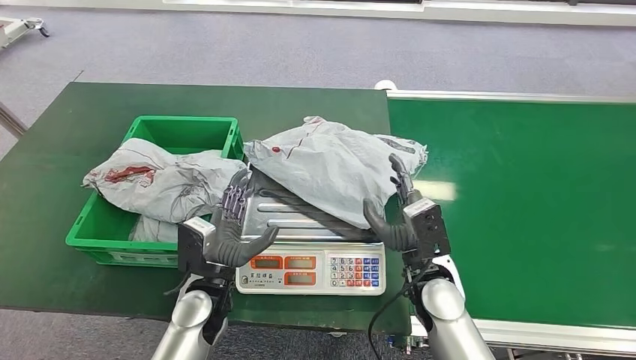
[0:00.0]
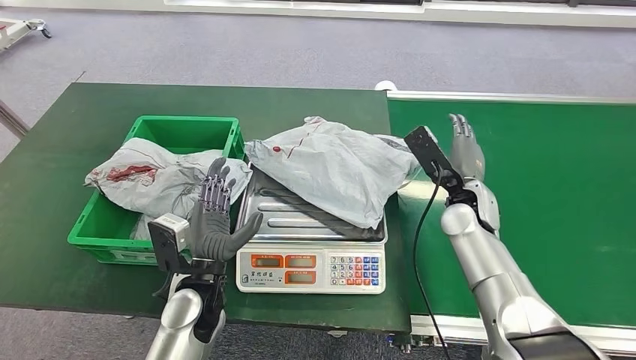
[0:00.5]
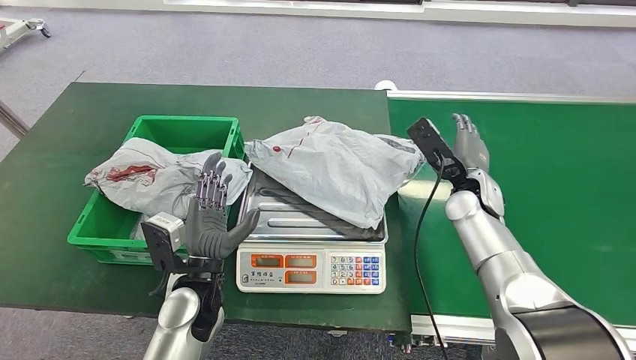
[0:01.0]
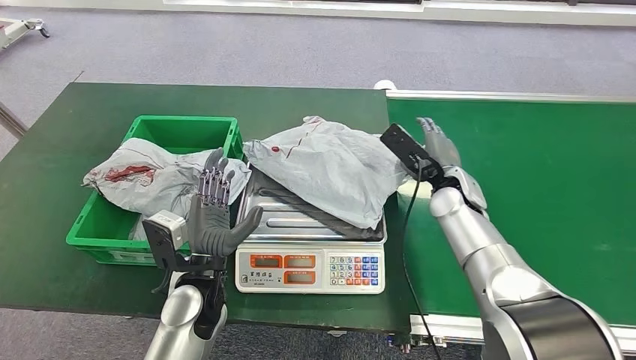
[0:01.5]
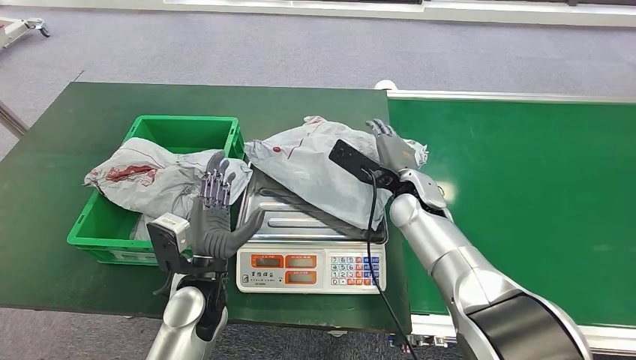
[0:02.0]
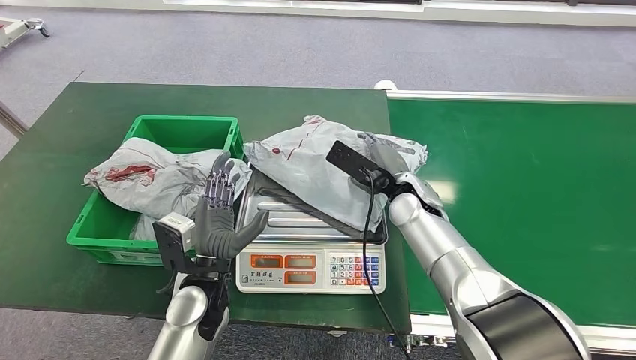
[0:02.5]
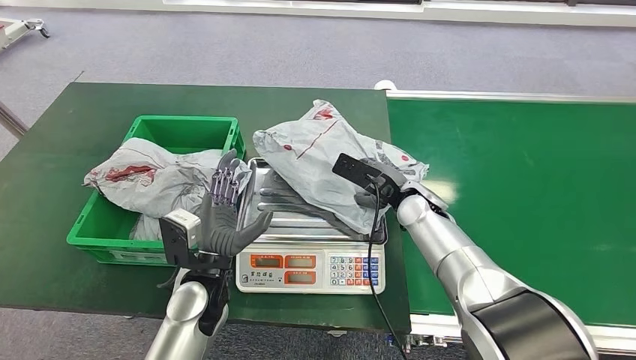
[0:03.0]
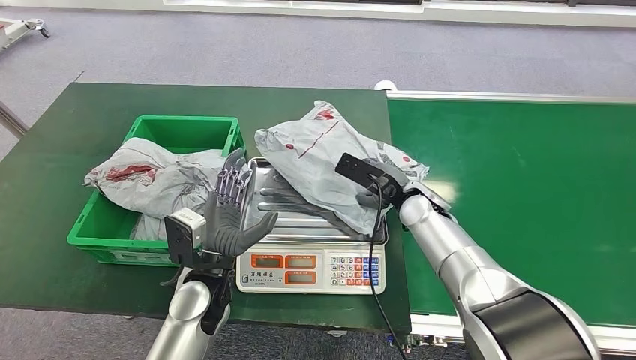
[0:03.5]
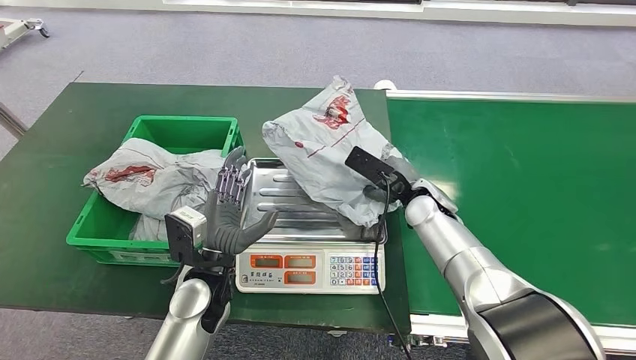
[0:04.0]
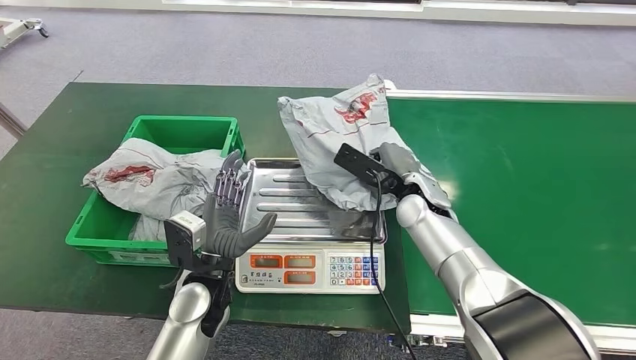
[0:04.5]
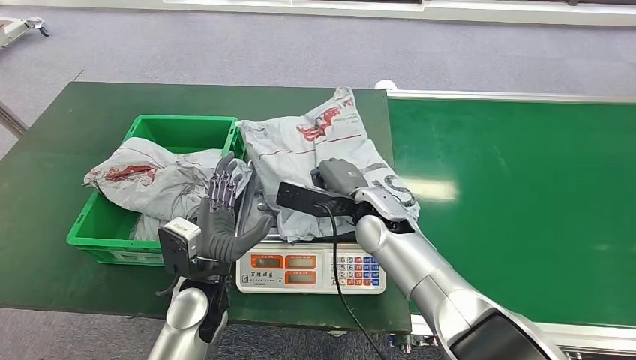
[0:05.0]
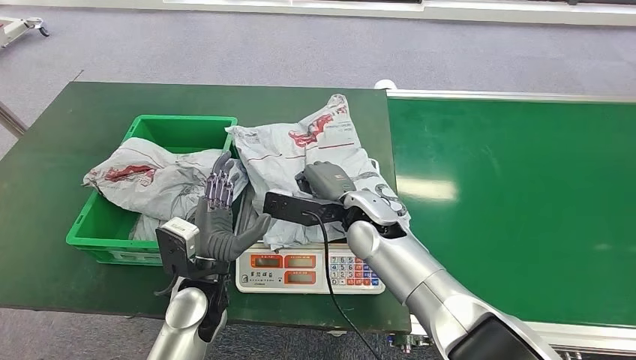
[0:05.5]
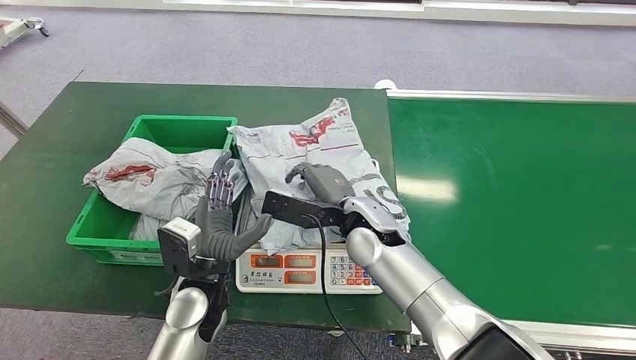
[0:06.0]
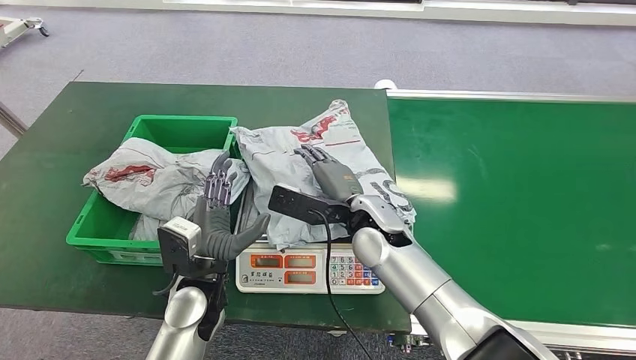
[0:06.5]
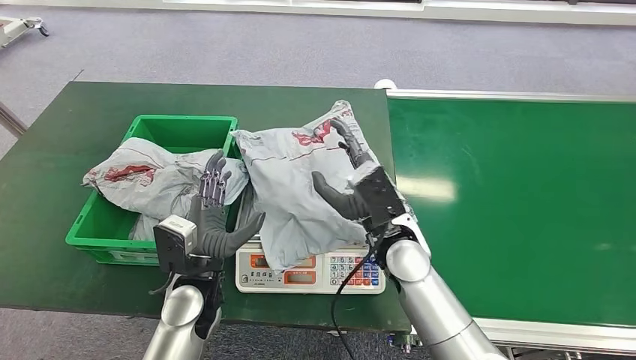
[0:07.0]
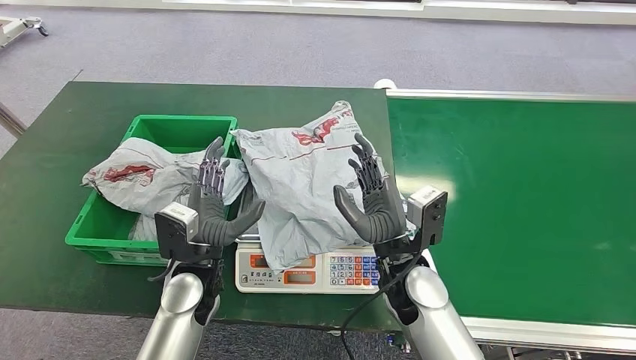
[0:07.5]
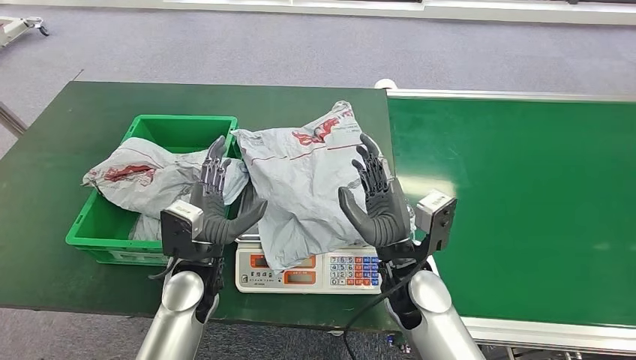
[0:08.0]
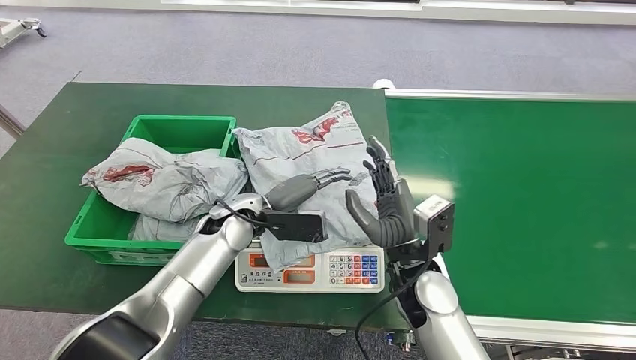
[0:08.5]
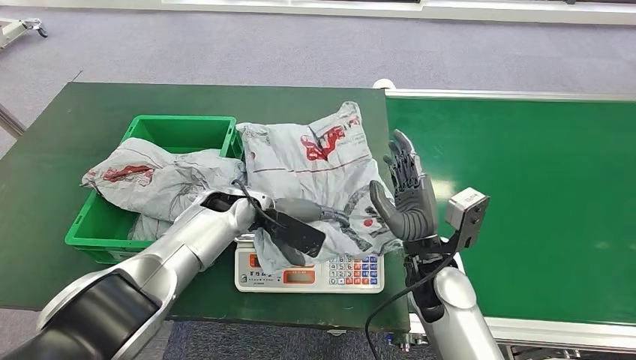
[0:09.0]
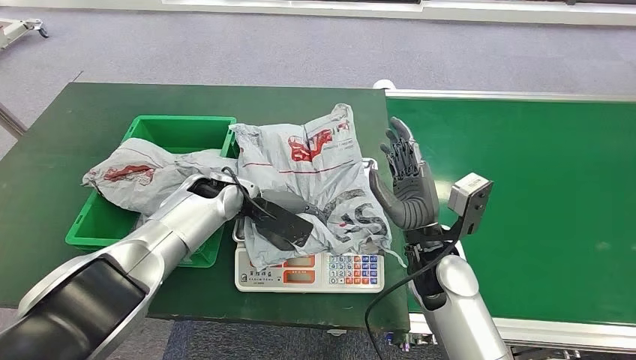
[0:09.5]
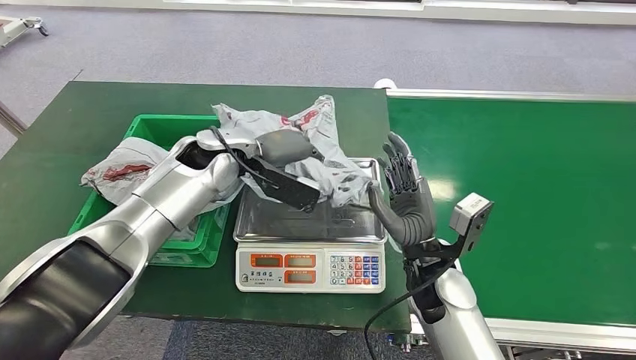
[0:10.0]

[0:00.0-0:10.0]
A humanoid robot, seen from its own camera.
Task of the whole recording: Weigh the package on the weighing device and place it in the left basket.
Step, 0:00.0 to 0:07.5: Place the package onto the inbound machine.
0:00.0 to 0:02.0: The right hand shifts about 15 cm forward.
0:06.0 to 0:08.0: The right hand heads backward and to the right, covering about 10 cm.

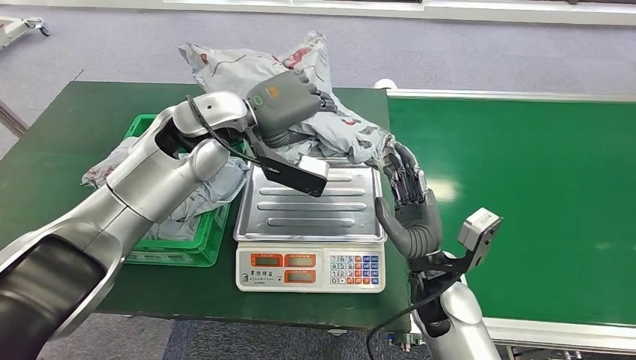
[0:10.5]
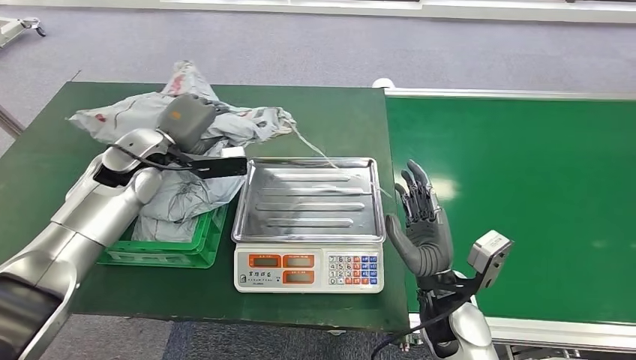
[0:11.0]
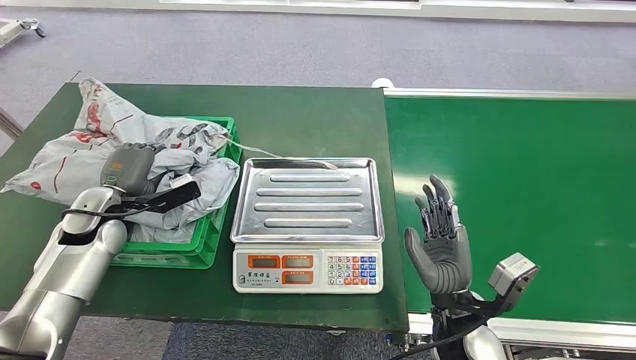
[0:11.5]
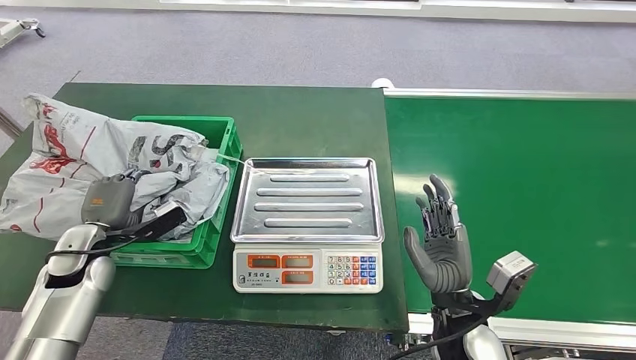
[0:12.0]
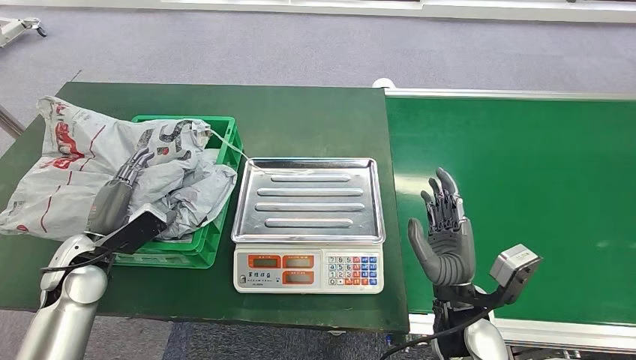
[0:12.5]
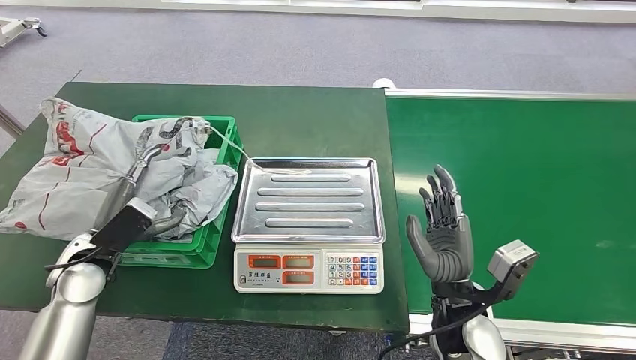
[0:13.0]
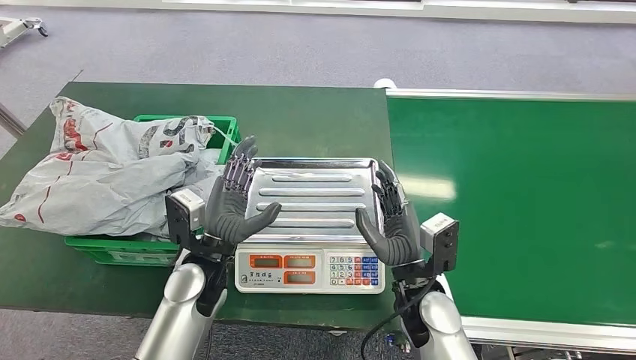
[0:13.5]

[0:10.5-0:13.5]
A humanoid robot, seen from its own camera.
Task of the whole recording: Weigh the package on the weighing device and place it in the left basket.
Step, 0:11.0 to 0:13.5: Place the package into the parcel locker.
